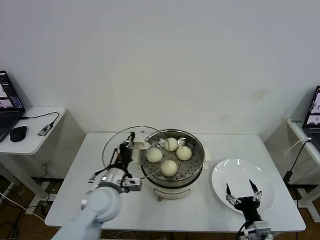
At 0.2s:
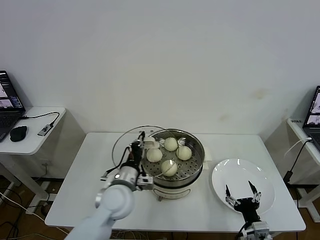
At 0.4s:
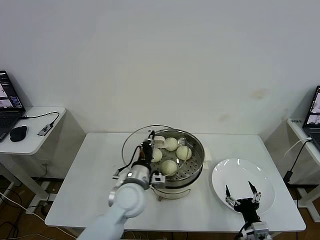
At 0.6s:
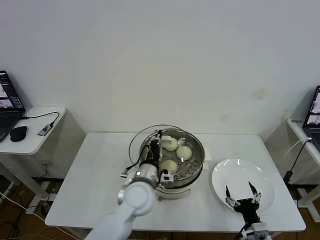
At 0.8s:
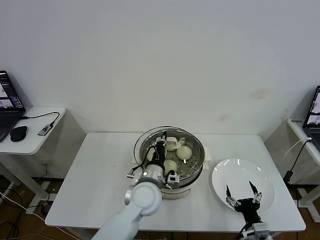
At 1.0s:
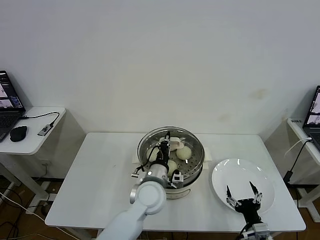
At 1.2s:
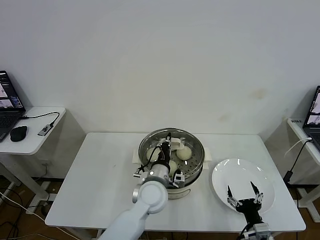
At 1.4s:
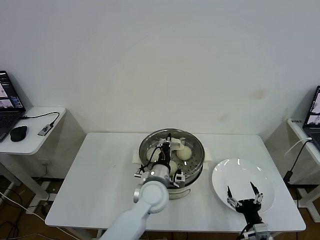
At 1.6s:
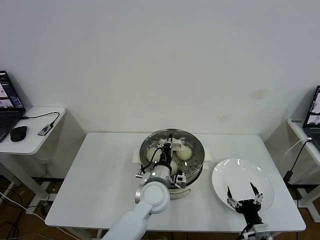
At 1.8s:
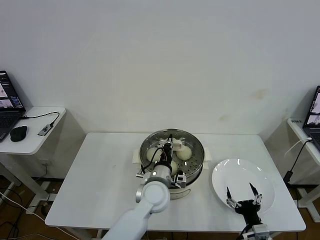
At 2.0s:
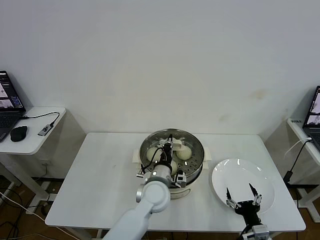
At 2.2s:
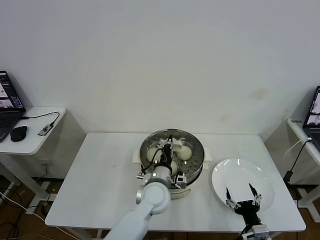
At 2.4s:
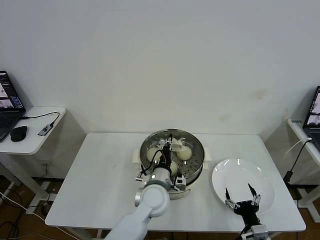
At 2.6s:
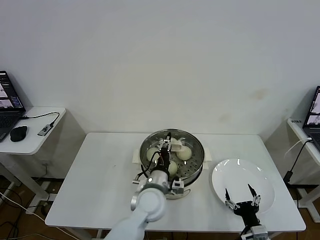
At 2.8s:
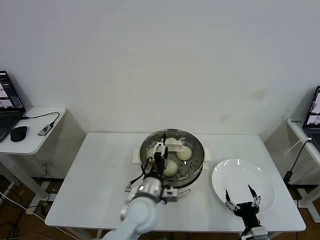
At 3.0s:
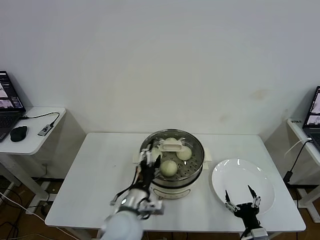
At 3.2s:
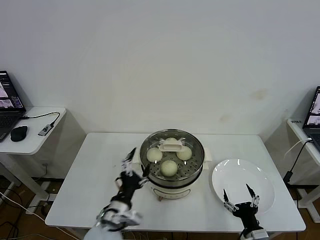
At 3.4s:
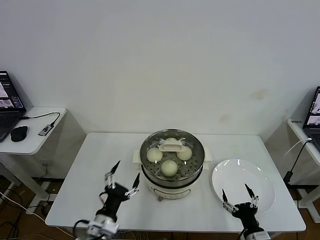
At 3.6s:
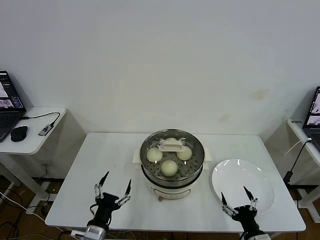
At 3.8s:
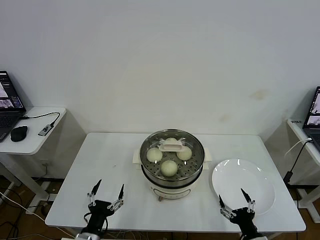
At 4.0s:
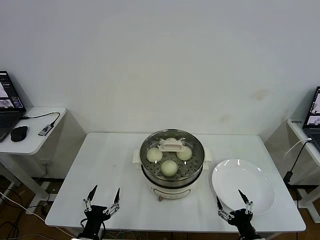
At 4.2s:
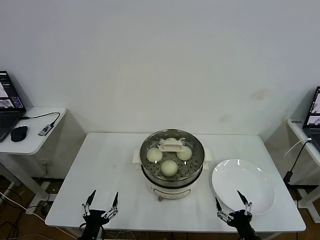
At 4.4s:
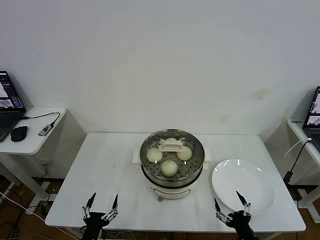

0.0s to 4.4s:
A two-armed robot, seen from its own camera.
Task of the whole recording: take steamed baozi put them in steamer then cover it.
Step, 0.0s to 2.6s: Place the pot lid on the steamer with left gripper.
0.0s to 1.4s: The left gripper travels to the right by approximately 15 cm.
1.4s to 3.0s: The left gripper is displaced backward and to the left by roughly 10 cm, and opens.
3.0s to 4.4s: The left gripper is displaced to the left, backward and downward by approximately 25 cm.
